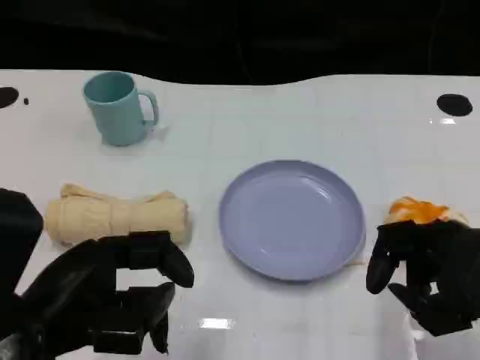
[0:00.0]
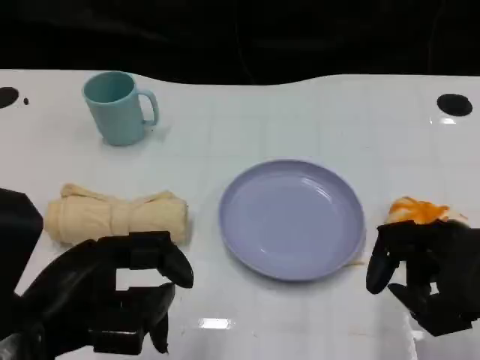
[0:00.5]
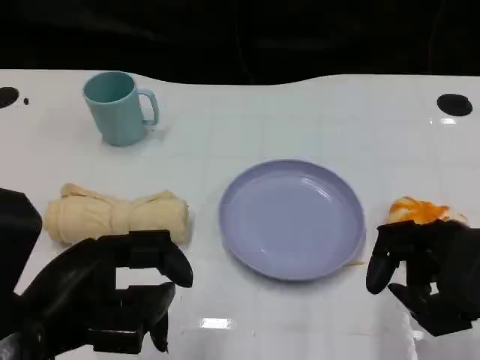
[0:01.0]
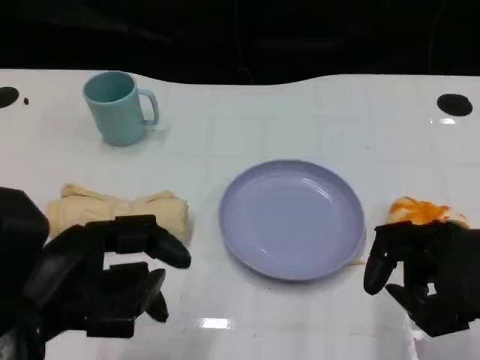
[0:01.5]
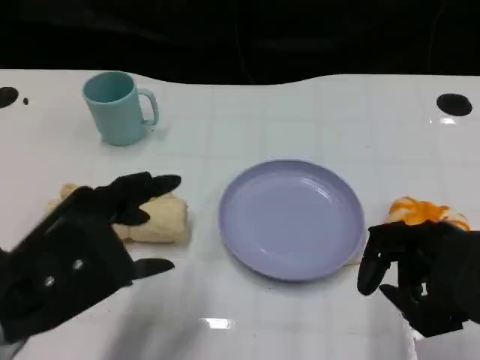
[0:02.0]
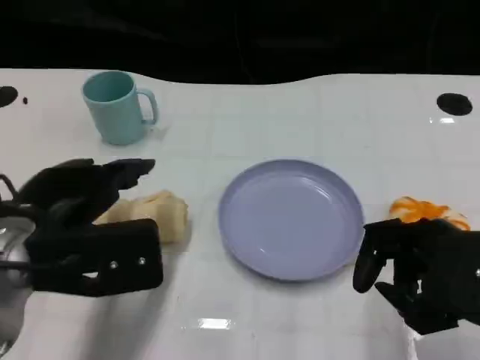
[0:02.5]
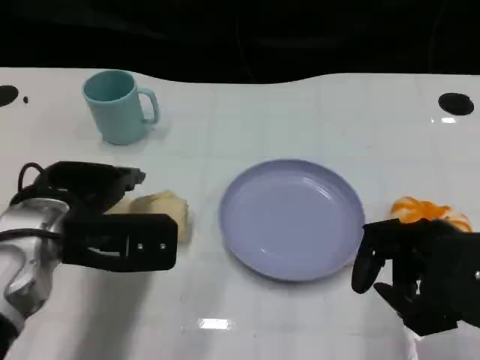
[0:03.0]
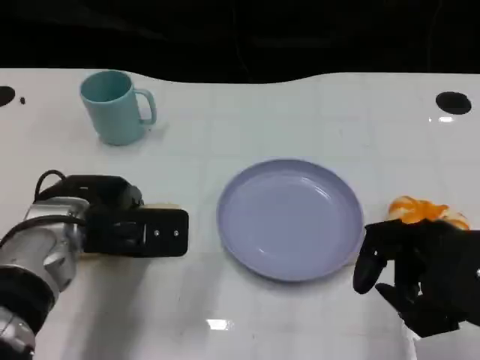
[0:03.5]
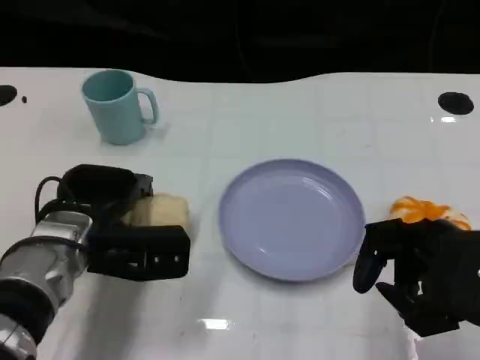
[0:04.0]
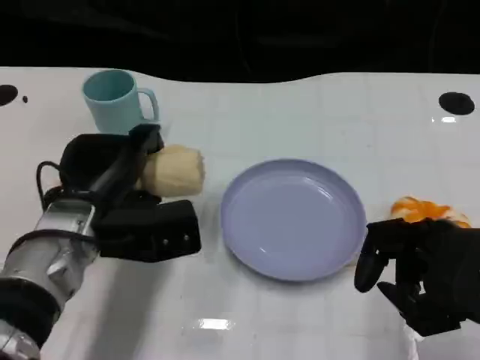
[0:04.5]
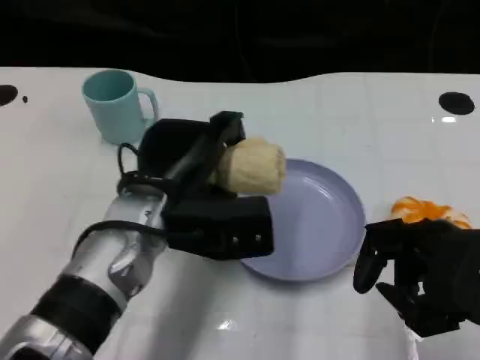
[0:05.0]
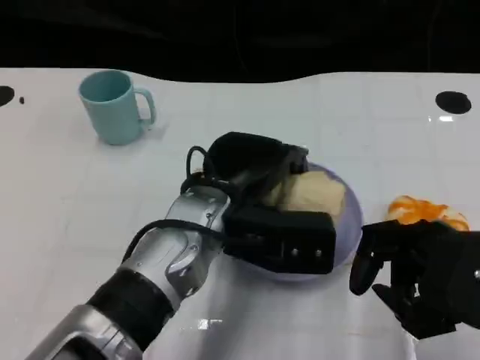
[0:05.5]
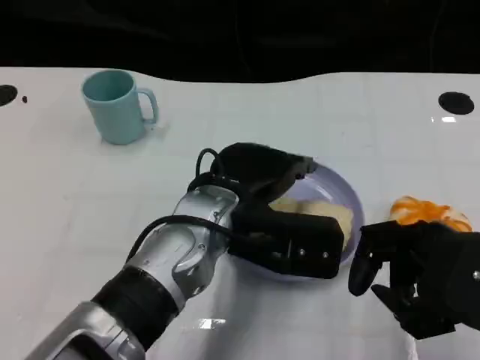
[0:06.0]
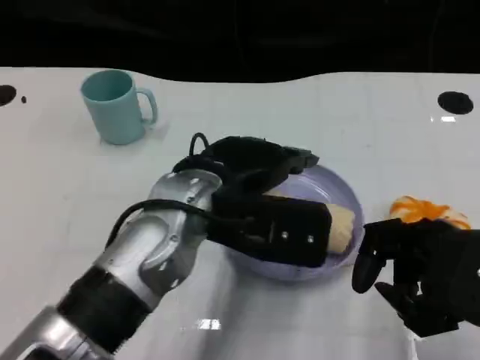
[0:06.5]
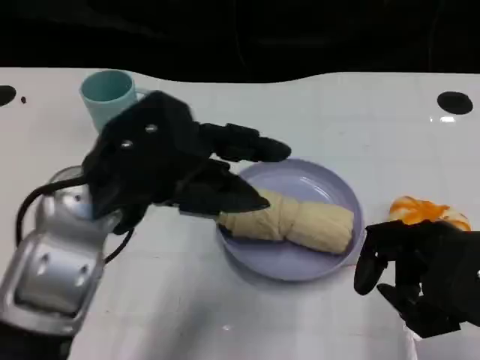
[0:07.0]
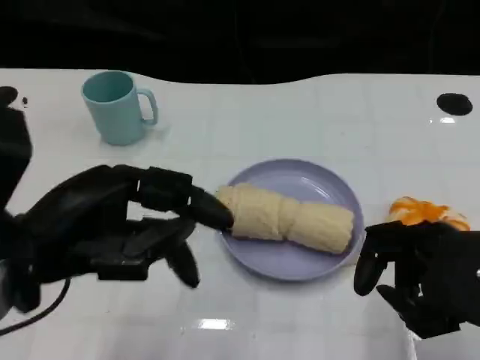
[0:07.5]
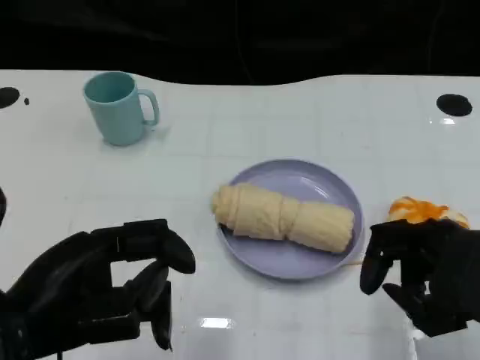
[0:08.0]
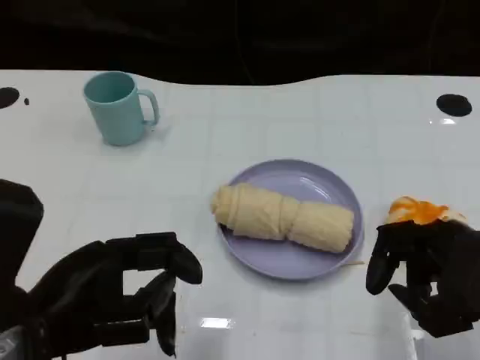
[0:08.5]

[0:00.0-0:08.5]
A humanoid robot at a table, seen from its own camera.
Task of the whole recording: Grasp the towel on the left side of the plate with the left hand and place it into the plate.
0:02.0 to 0:04.0: The left hand is displaced forward and downward by roughly 15 cm.
0:04.0 to 0:06.5: The left hand travels to the right and upward by approximately 15 cm.
0:06.5 to 0:08.5: The left hand moves to the left and backward, roughly 20 cm.

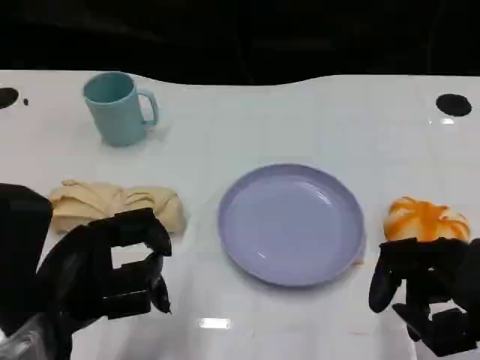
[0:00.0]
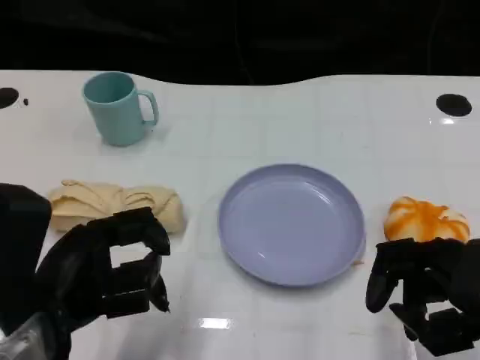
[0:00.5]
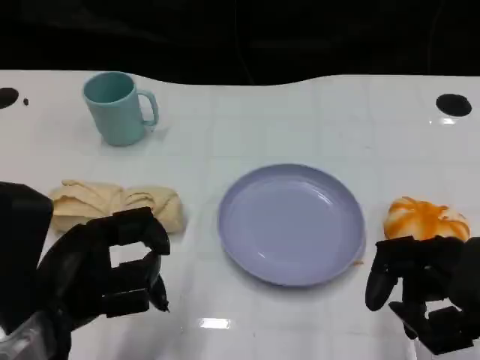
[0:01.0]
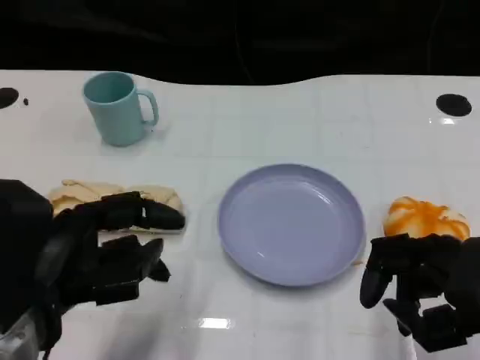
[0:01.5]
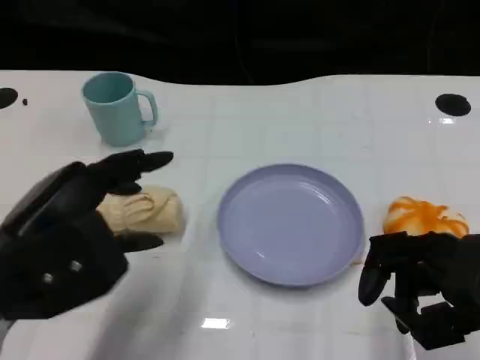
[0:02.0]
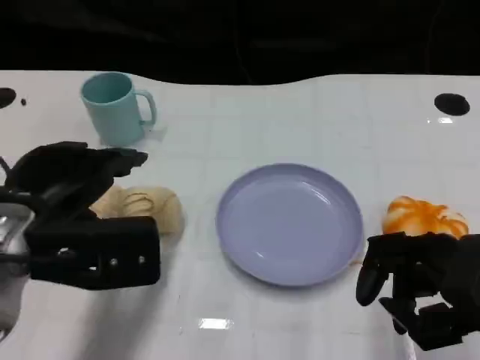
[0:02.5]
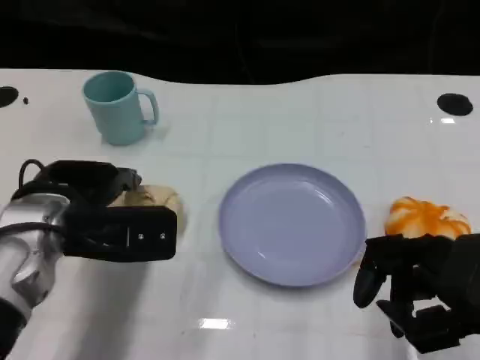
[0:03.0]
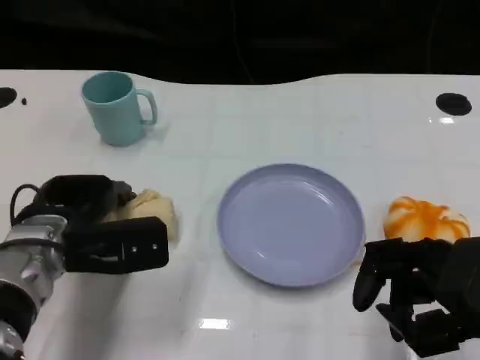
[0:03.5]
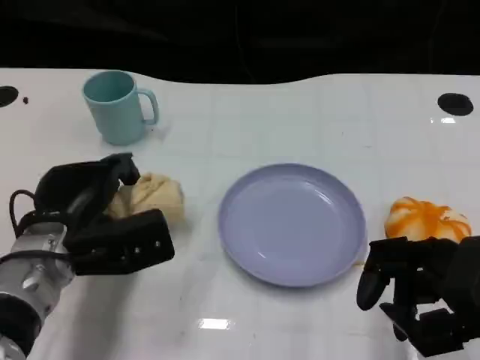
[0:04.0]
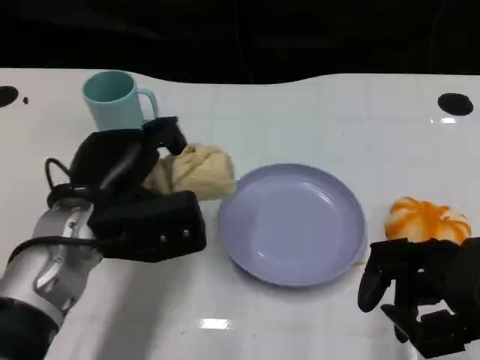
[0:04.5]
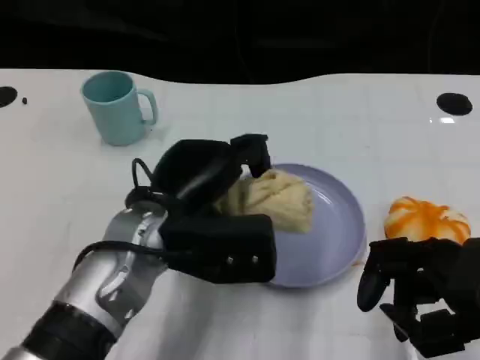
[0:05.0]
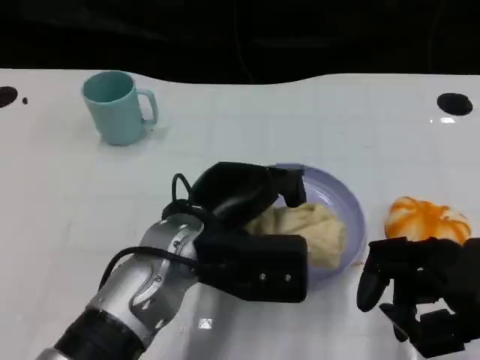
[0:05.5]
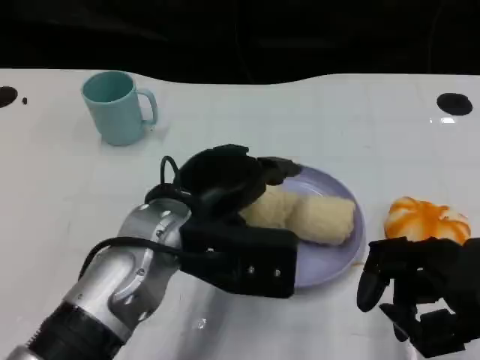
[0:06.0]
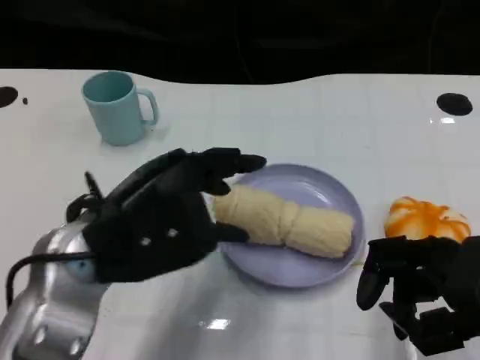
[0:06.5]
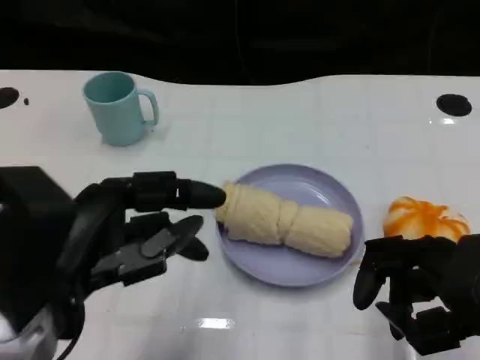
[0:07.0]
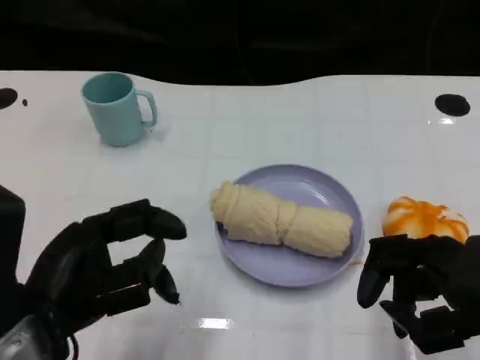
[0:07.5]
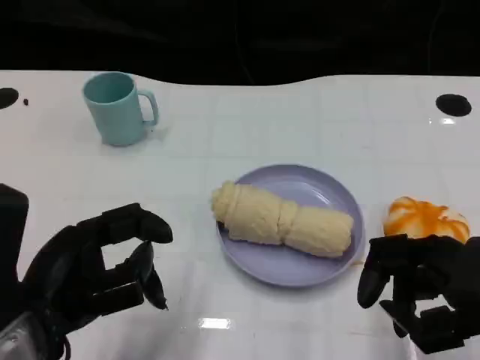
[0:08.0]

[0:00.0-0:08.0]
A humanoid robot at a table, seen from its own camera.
Task of the whole recording: Grasp the towel on the left side of the plate with the left hand and place it into the plate.
0:02.0 to 0:04.0: The left hand shifts some 15 cm downward and forward.
0:04.0 to 0:06.0: The left hand goes some 10 cm to the right and upward.
0:06.0 to 0:08.0: The left hand heads to the left and backward, covering about 15 cm.

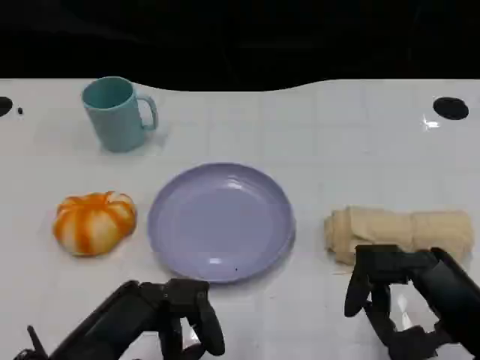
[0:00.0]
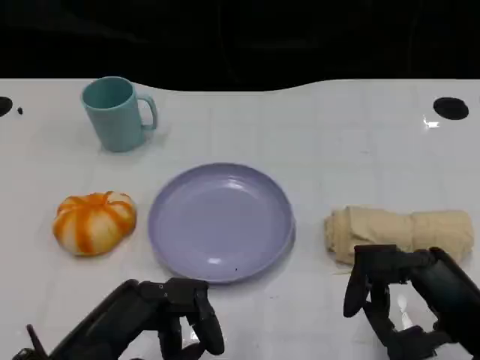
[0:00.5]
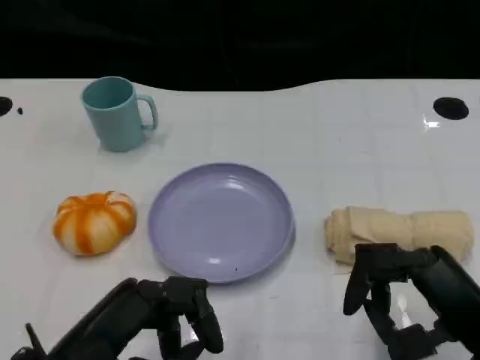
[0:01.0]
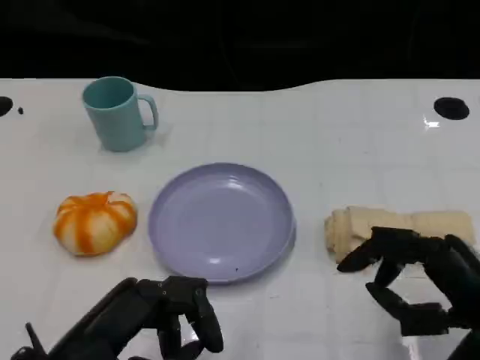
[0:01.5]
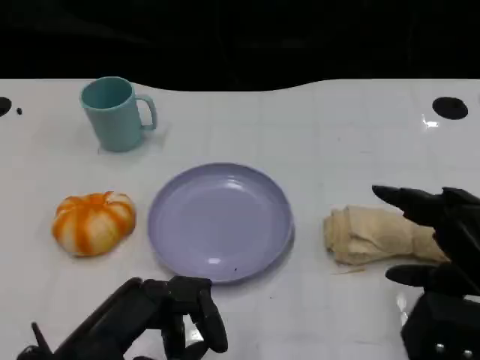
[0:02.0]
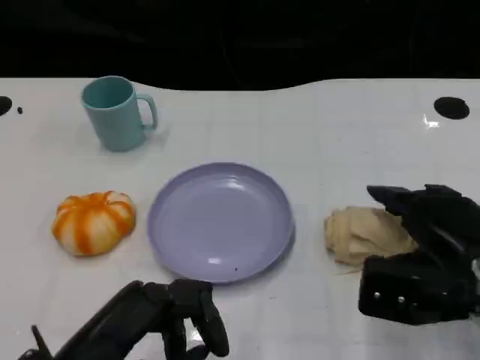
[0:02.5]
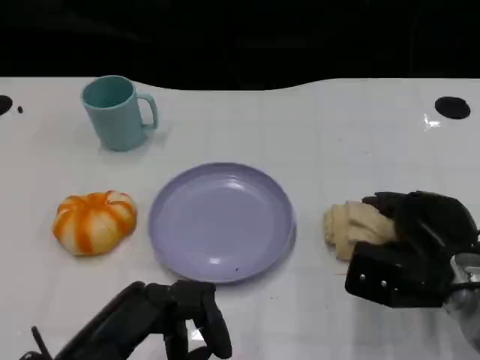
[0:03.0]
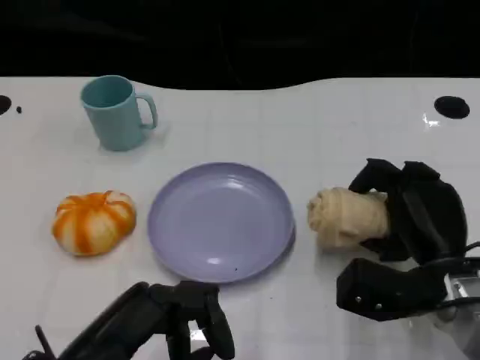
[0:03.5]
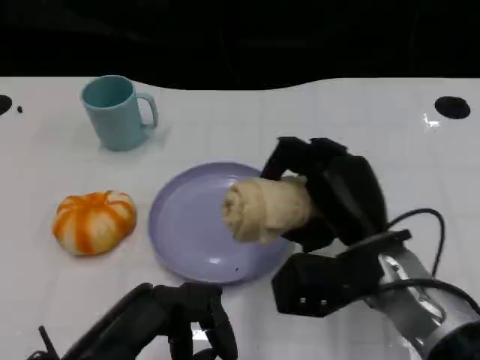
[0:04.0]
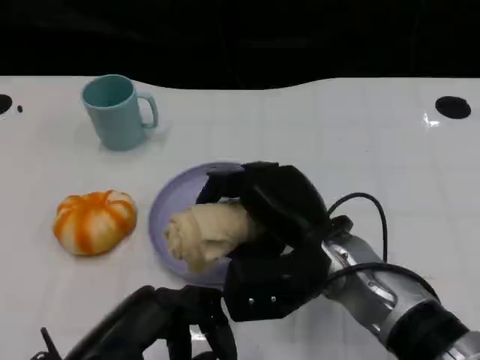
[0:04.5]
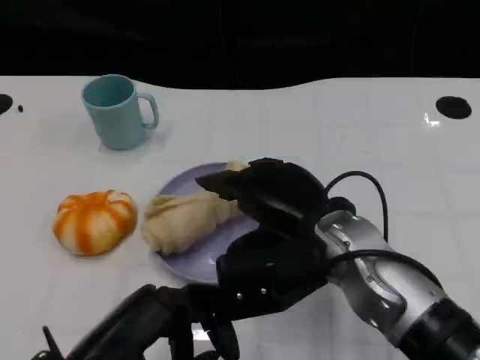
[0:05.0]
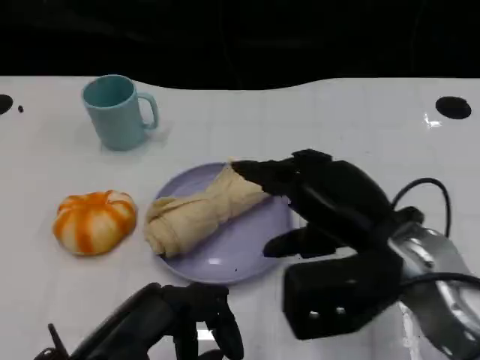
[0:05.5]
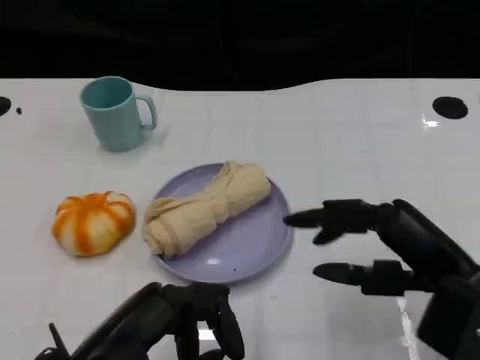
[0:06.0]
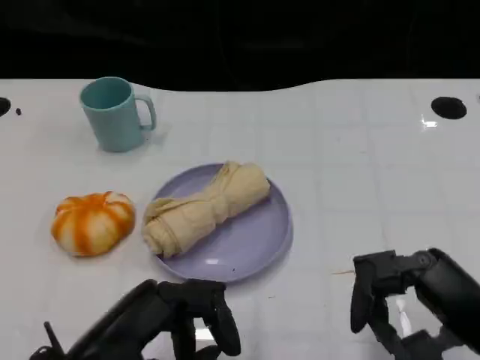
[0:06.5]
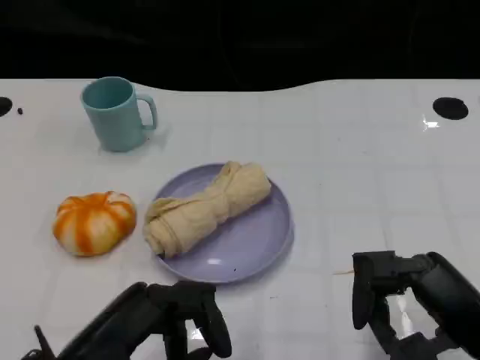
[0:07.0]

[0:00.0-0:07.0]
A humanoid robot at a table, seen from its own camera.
Task of the whole recording: Grasp the towel on the left side of the plate with the left hand and place it into the plate.
0:02.0 to 0:03.5: The right hand travels downward, forward and to the left by roughly 10 cm.
0:03.5 to 0:05.0: The right hand travels to the left and upward by some 15 cm.
0:05.0 to 0:07.0: The right hand goes roughly 20 cm to the right and backward.

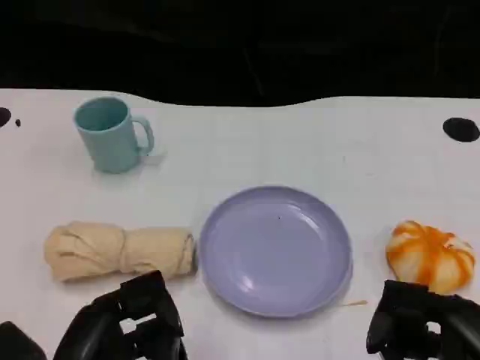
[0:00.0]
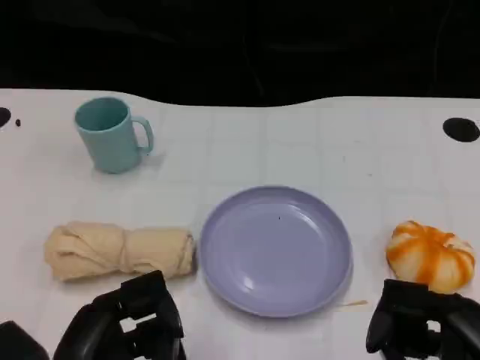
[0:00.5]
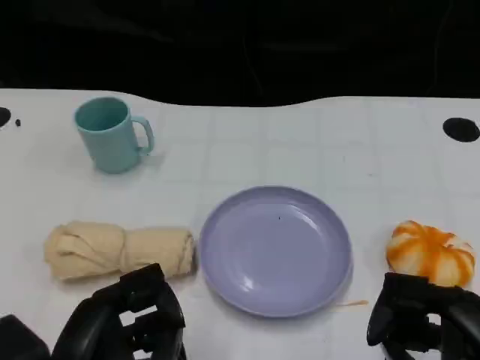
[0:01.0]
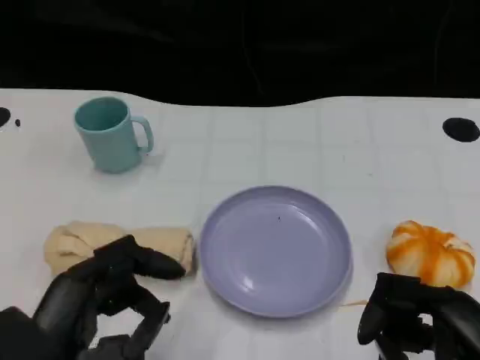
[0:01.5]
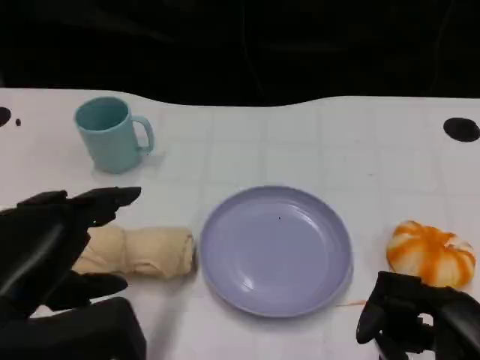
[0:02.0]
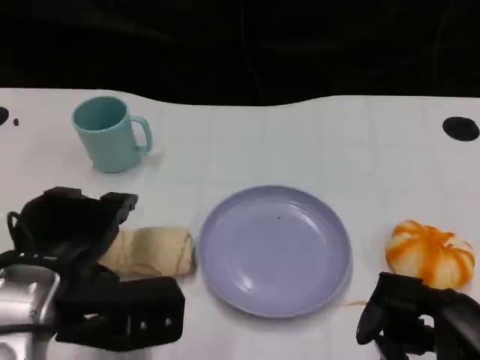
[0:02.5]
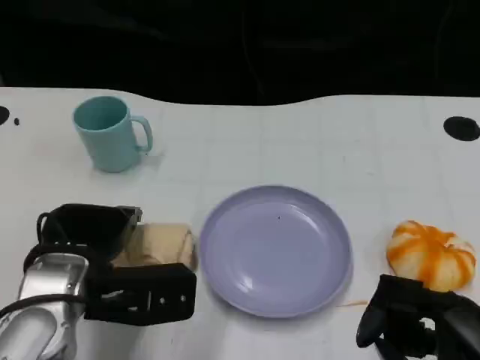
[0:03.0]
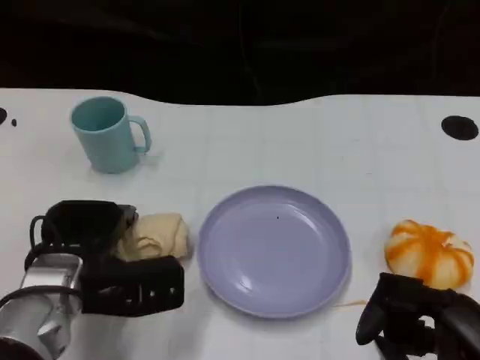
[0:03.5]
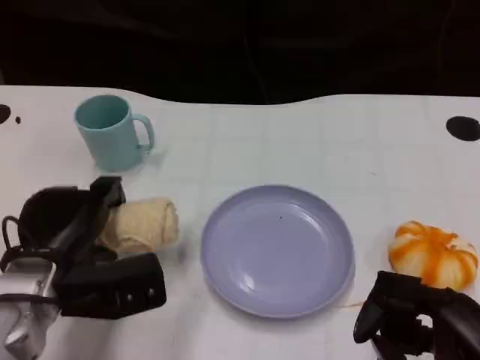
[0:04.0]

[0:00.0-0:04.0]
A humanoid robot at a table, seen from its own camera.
Task of the whole recording: Grasp the towel on the left side of the plate with the left hand and place it into the plate.
0:00.0 to 0:02.0: The left hand heads upward, covering some 5 cm.
0:02.0 to 0:04.0: The left hand heads forward and downward, covering roughly 15 cm.
